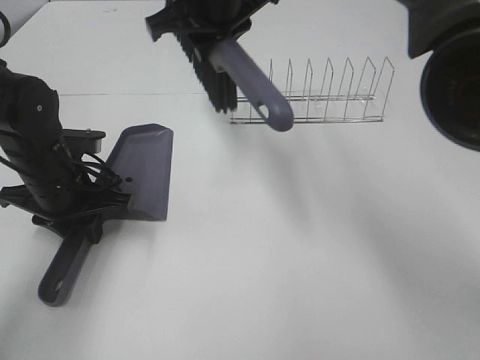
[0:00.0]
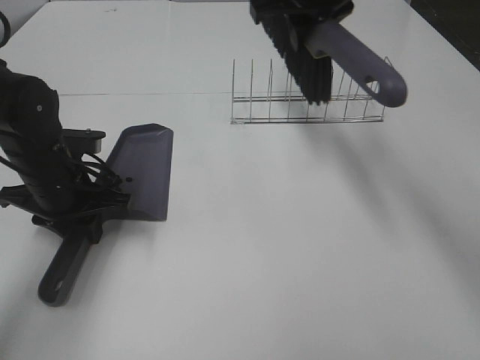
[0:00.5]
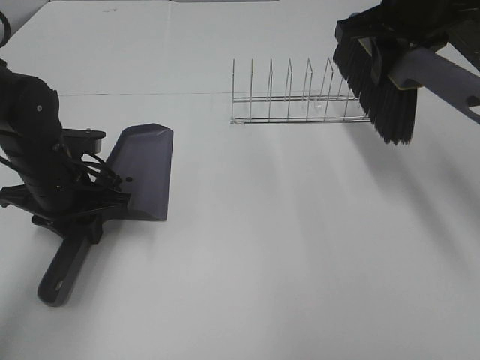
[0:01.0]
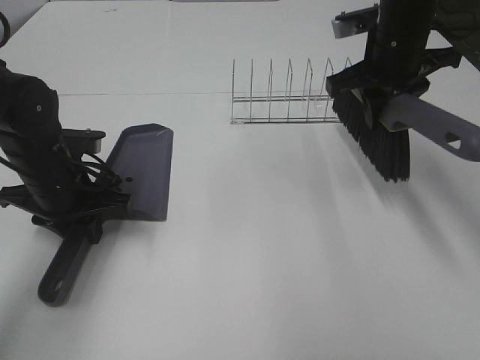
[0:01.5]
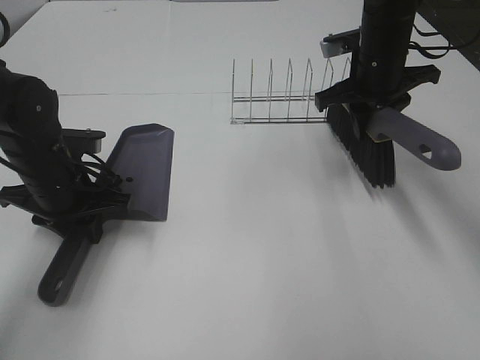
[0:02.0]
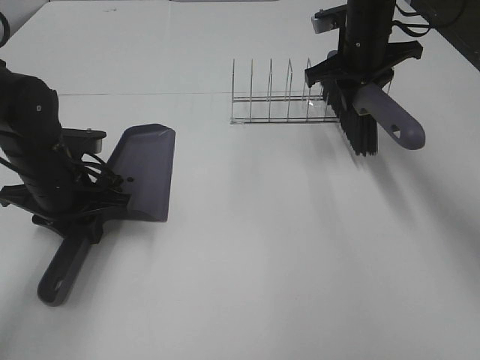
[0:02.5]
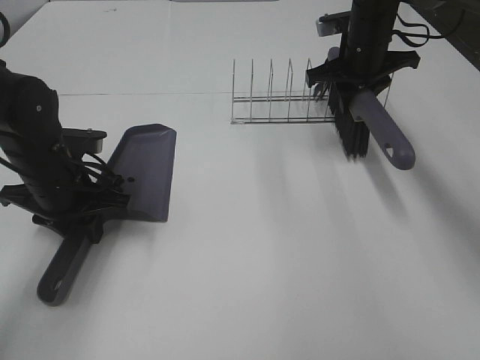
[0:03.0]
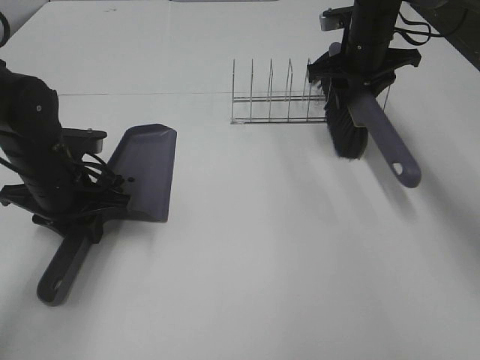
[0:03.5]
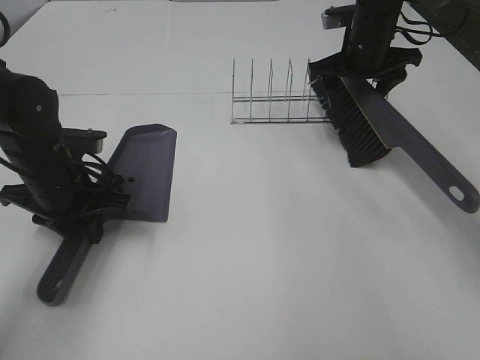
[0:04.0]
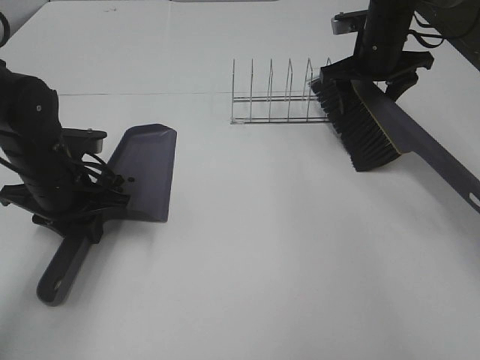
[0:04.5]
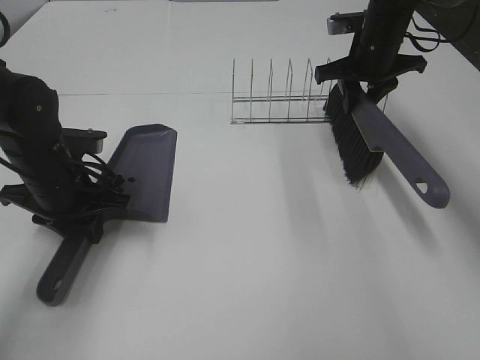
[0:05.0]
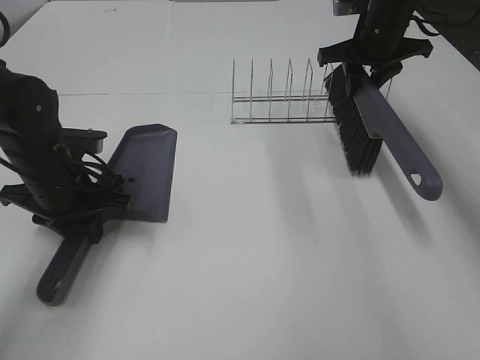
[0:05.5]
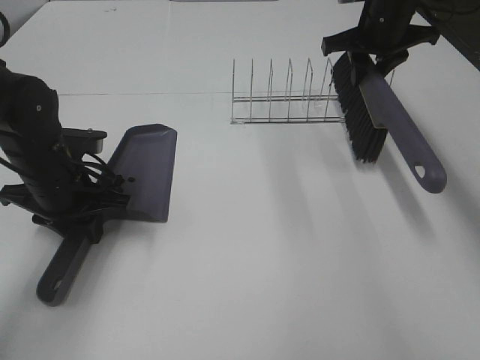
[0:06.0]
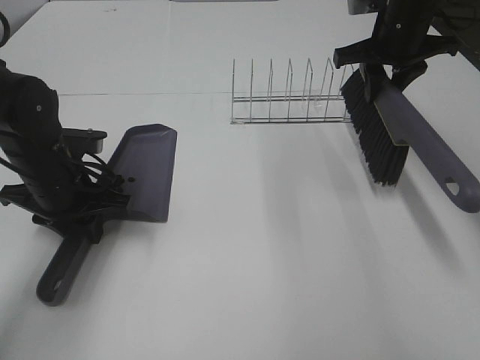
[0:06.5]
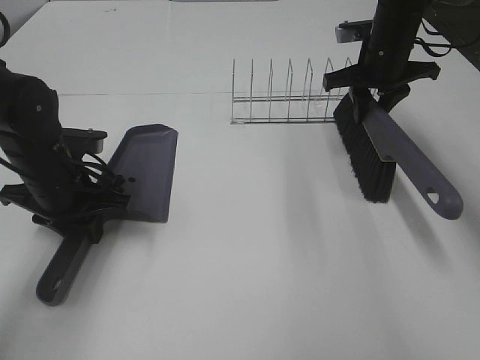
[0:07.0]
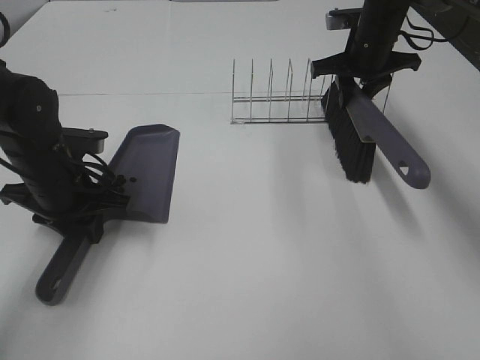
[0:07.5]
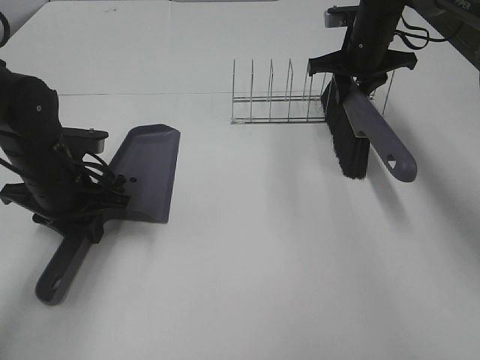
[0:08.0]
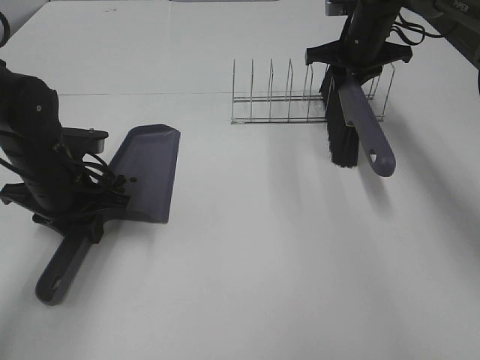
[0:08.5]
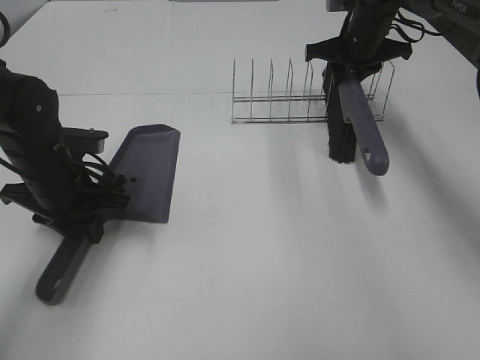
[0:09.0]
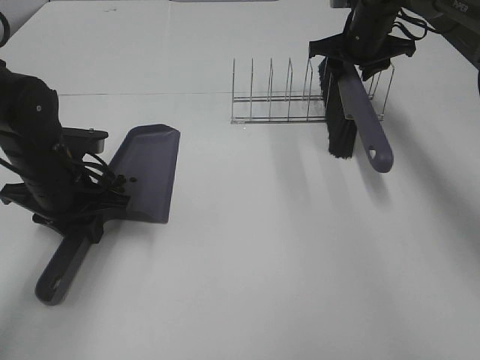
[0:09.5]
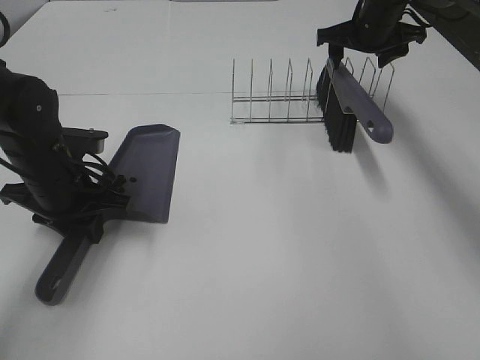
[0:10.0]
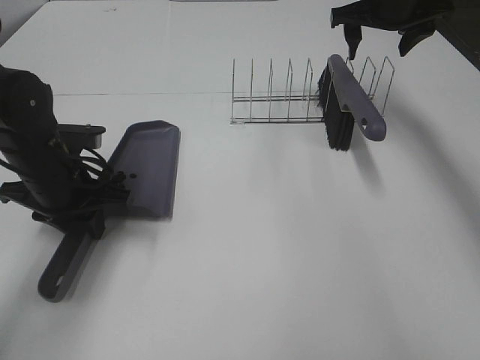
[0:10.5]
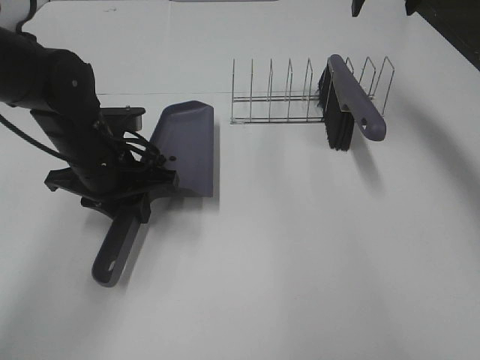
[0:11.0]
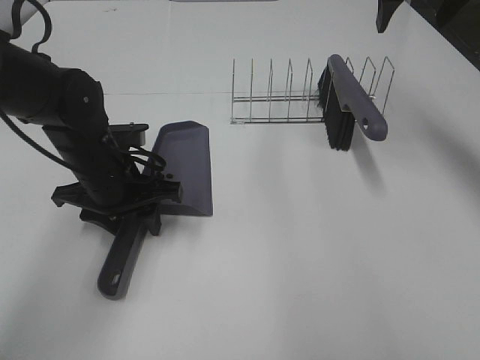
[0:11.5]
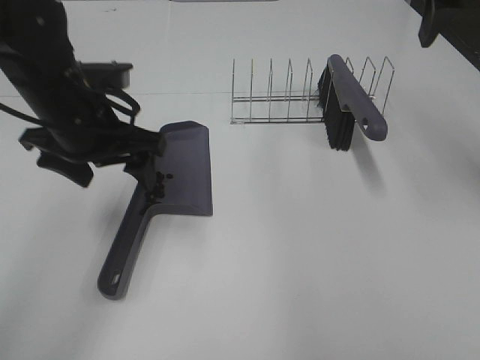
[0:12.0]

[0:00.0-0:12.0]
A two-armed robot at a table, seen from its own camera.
Task of the whole recording: Sweep Coffee Bean.
Step, 0:00.0 to 0:09.5: Right hand:place the broom on the rack.
Step, 0:10.0 to 0:11.5: Left hand:place the dustpan on the table.
0:00.0 to 0:02.0: The right gripper goes approximately 20 cm to the right and downward.
0:02.0 to 0:04.0: The right gripper heads forward, covering approximately 5 cm, and opens.
0:04.0 to 0:06.0: The right gripper closes up.
0:06.0 to 0:08.0: The right gripper shifts by about 5 cm.
0:08.0 to 0:10.0: The right gripper opens its fingers.
0:10.0 to 0:12.0: The left gripper shifts about 10 cm upward, and opens its fingers. The right gripper heads backward and upward, covering roughly 25 cm.

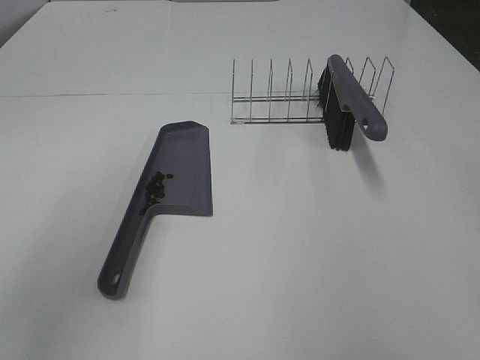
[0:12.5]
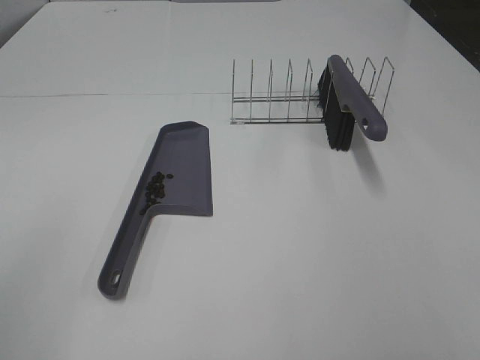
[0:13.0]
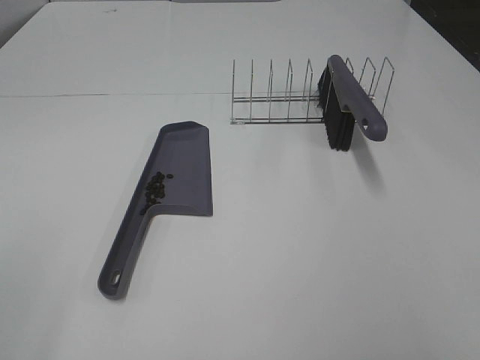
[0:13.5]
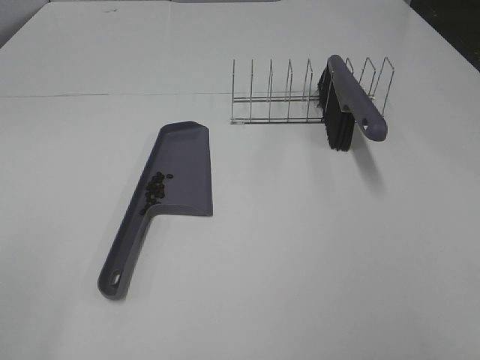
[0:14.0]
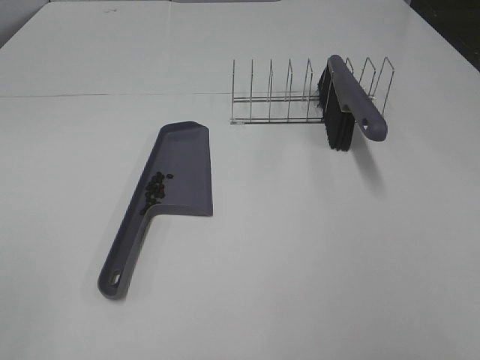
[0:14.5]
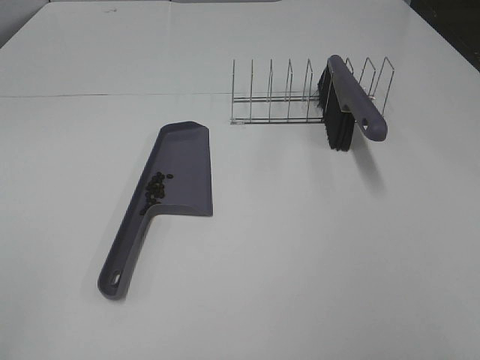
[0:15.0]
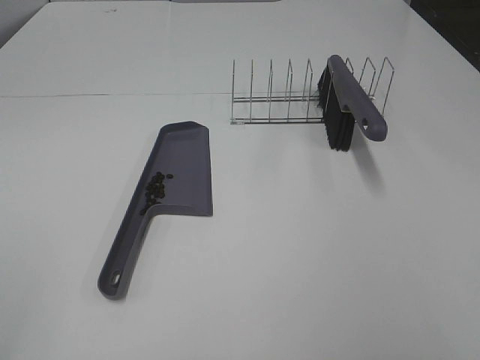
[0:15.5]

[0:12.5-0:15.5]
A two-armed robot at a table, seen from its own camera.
Task of the whole recording: Sweep Coffee Bean.
0:12.5 to 0:14.0: The left gripper goes some 20 cm backward and to the left.
